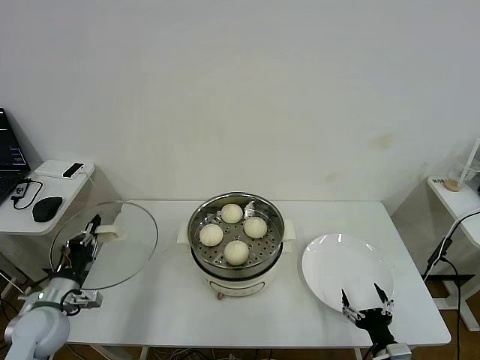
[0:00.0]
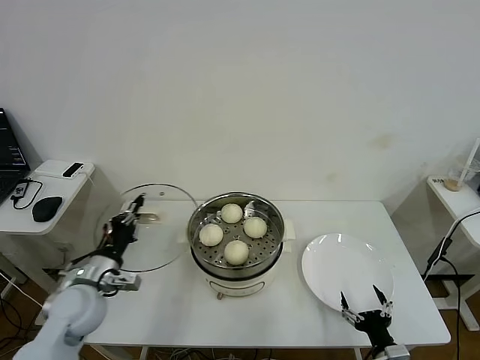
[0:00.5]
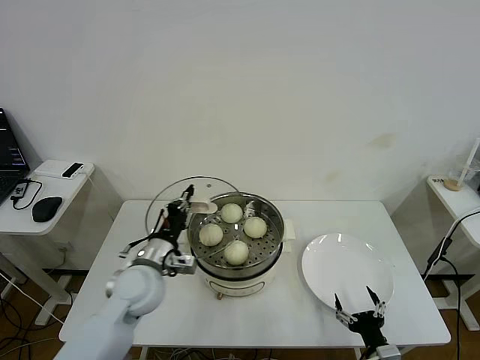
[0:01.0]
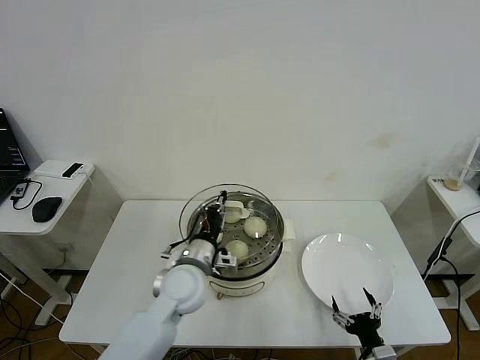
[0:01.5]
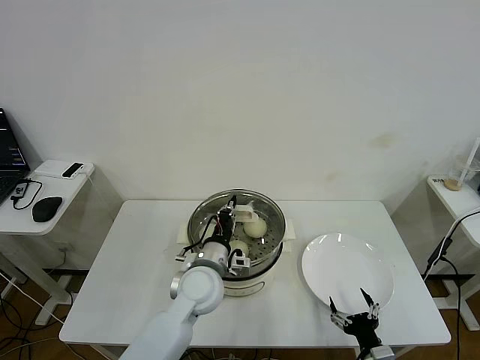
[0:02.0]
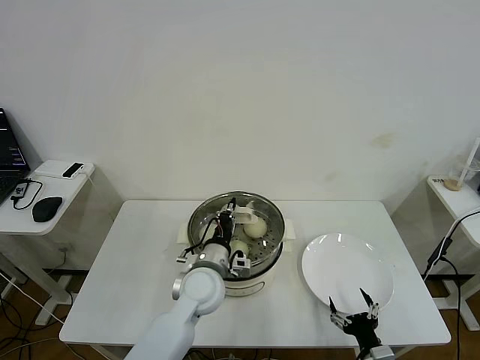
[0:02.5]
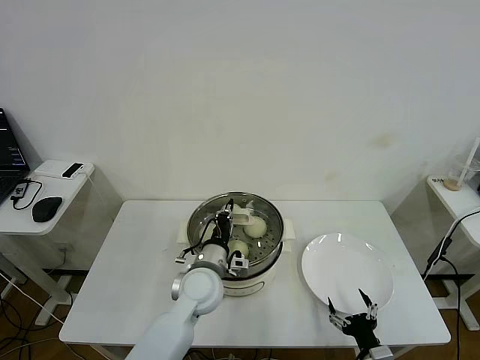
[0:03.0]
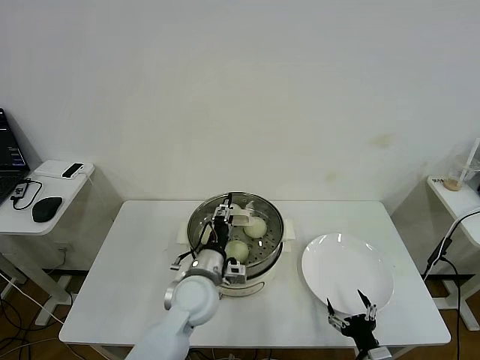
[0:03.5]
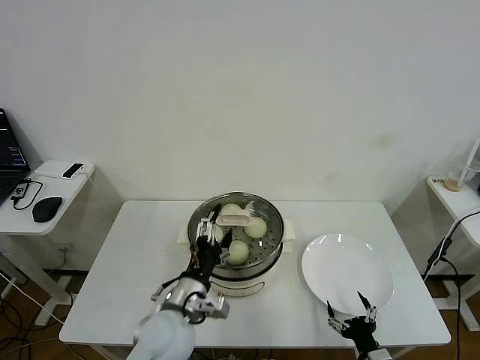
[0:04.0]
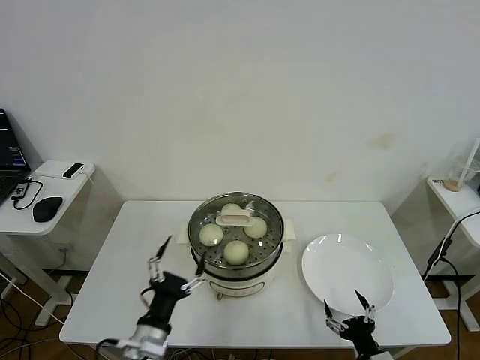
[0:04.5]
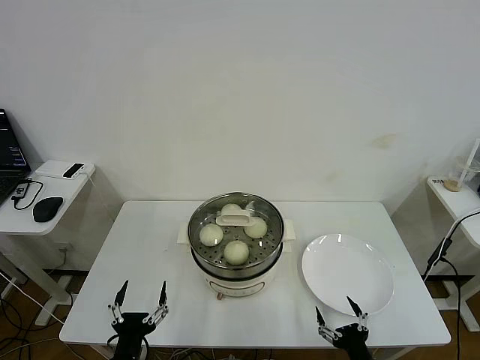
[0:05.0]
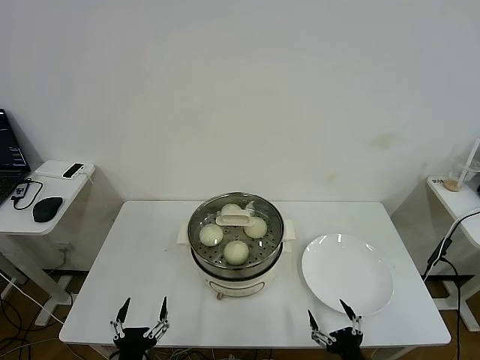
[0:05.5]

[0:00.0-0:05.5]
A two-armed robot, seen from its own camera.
Task of the whole recording: take steamed baozi put them in steamer then cover it.
Step, 0:00.0 to 0:04.0: Place the pot lid on the steamer with left gripper.
0:00.0 to 0:02.0: The left gripper shifts roughly 35 cm to the right.
0:02.0 to 0:03.5: The left gripper opens up.
0:03.5 to 0:05.5: The right gripper ends up some 5 cm from where it was. The left gripper shifts roughly 30 cm backward and to the left, and opens its fingers.

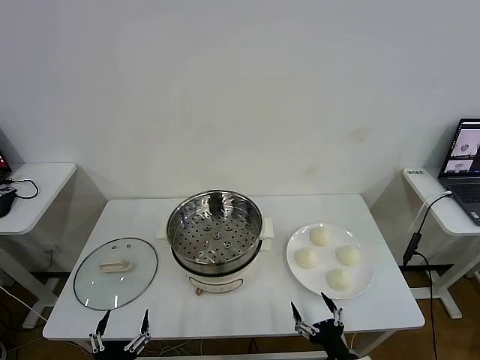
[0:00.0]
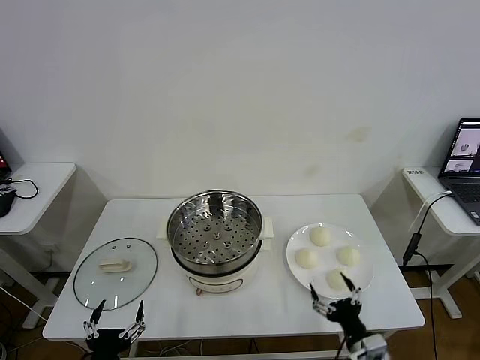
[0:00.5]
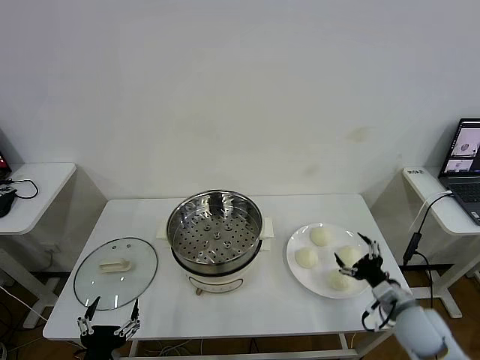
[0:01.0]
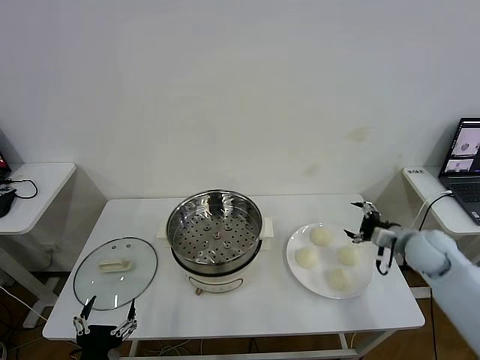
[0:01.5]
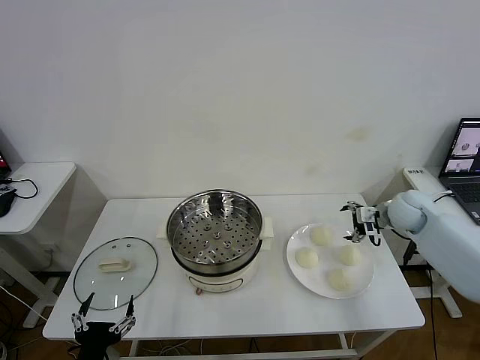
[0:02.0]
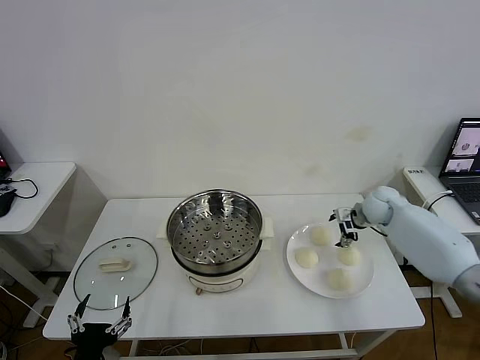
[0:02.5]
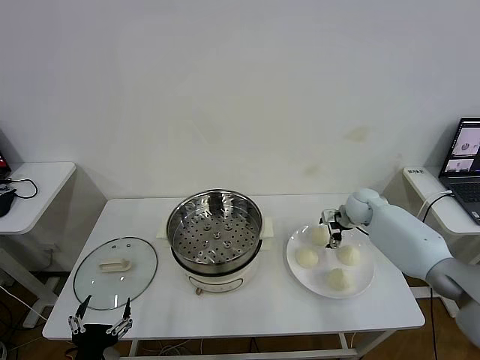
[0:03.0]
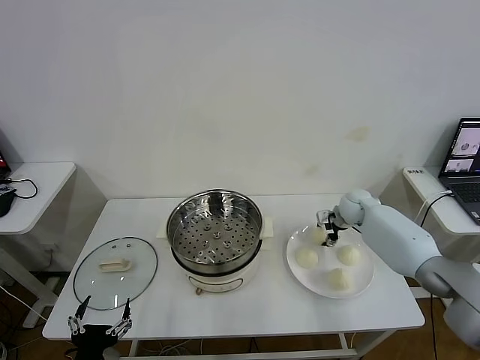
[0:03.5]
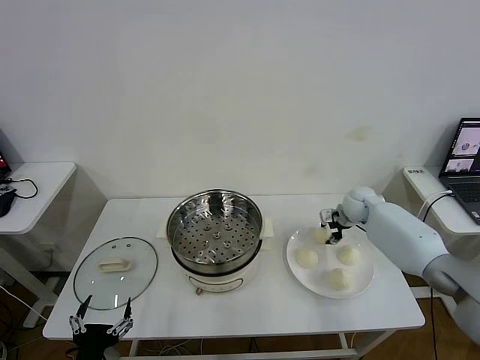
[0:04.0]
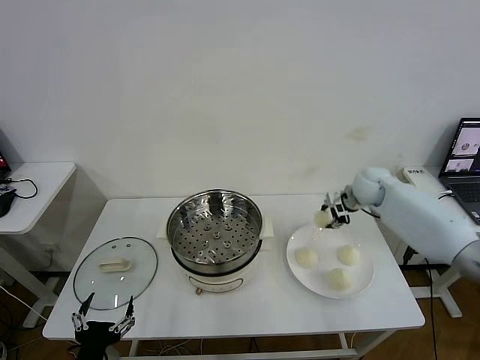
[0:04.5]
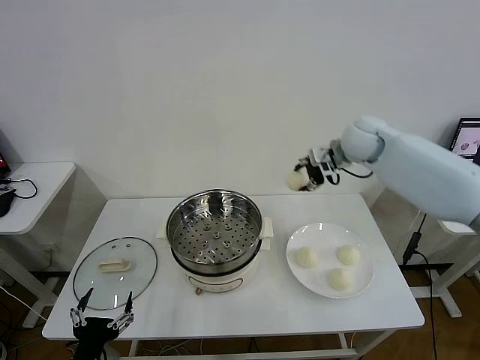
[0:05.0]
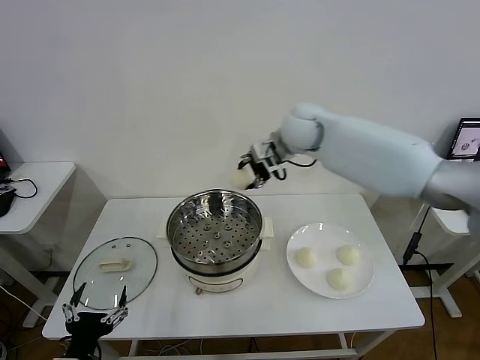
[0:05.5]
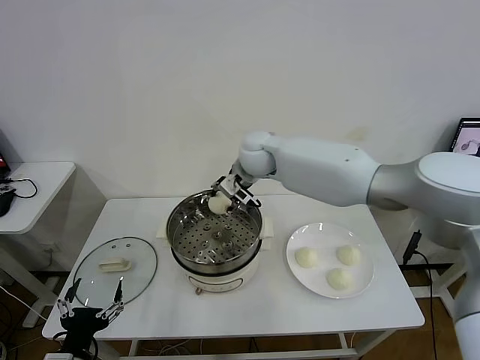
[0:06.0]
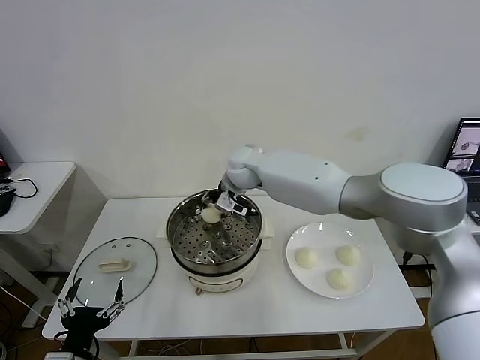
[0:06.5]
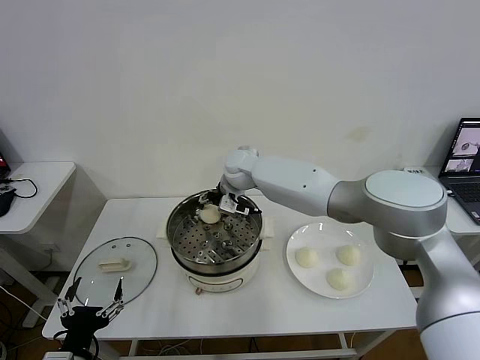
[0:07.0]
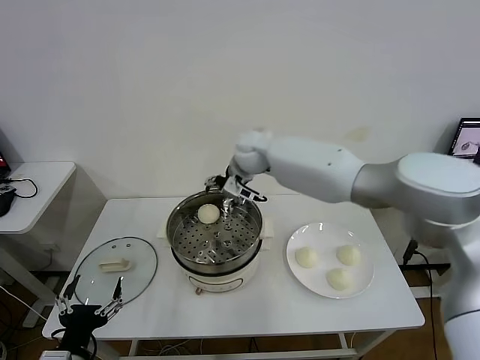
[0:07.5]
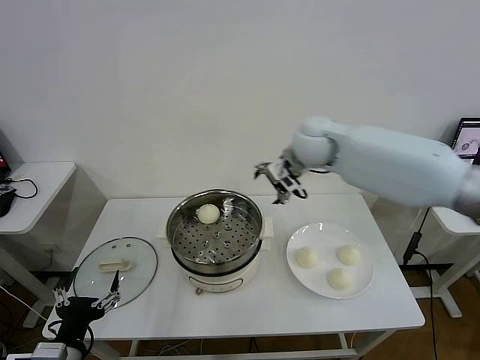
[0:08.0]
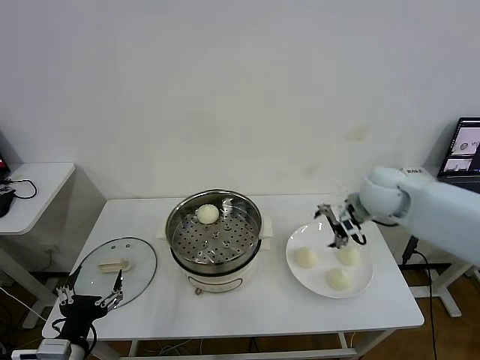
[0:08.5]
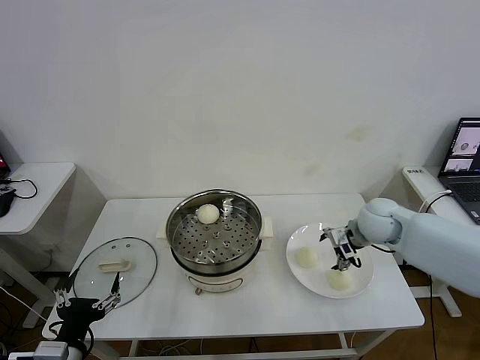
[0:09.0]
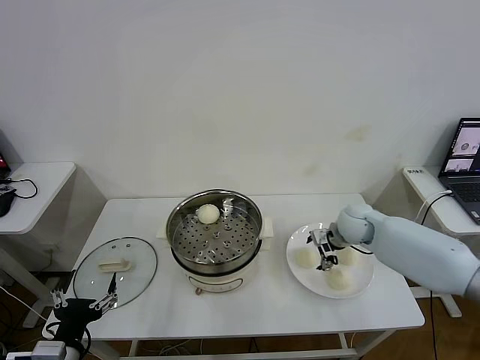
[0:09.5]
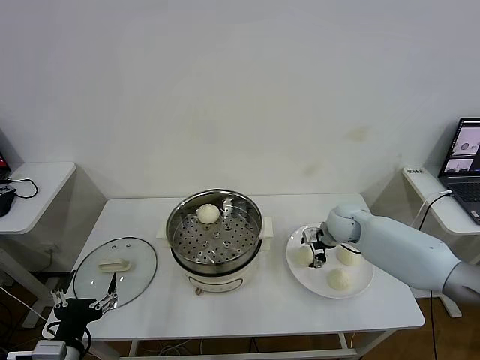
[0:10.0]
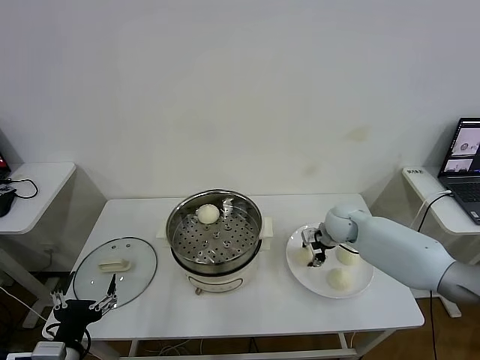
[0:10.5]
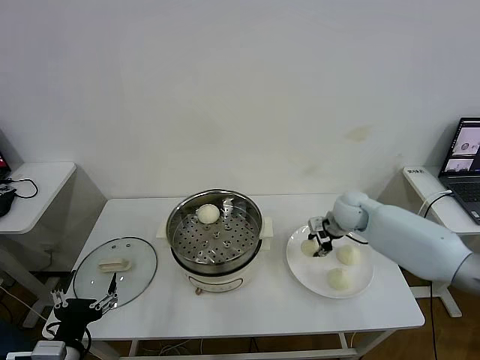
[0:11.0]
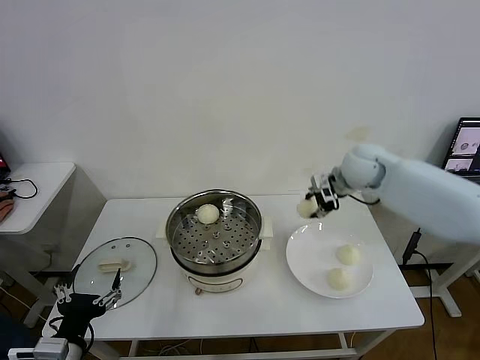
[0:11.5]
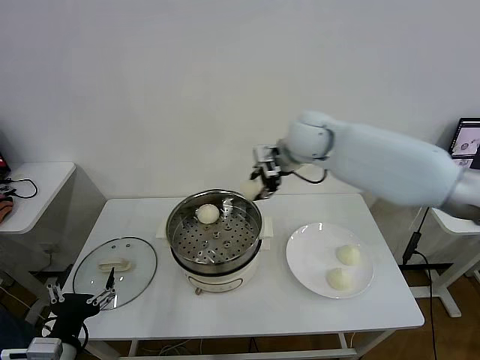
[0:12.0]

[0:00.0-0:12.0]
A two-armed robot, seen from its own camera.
Task of the whole recording: take steamed baozi put them in steamer then cover it.
Step, 0:00.0 to 0:03.5: Grasp the baozi in the plate with right gripper.
Step, 0:04.0 to 0:07.0: Place the baozi on the steamer with right gripper.
Step, 0:07.5 to 0:10.5: Grasp the baozi in the plate with right gripper.
0:02.0 to 0:04.0: The right gripper heads to the left and forward, covering roughly 10 cm, and closes its fingers.
0:04.0 to 0:06.0: The right gripper travels to the left and upward by some 35 cm.
0:06.0 to 0:08.0: The right gripper travels to the right by approximately 15 cm, and opens up.
0:08.0 to 0:10.0: The right gripper goes some 20 cm downward.
0:10.0 to 0:12.0: The right gripper shifts roughly 30 cm upward and to the left, and closes its fingers.

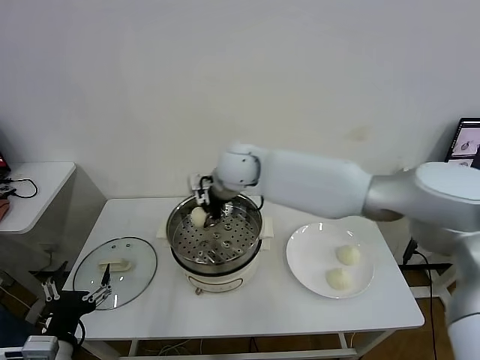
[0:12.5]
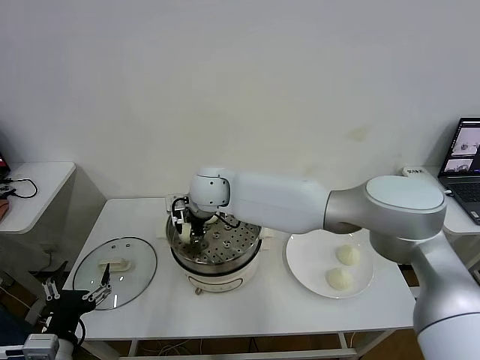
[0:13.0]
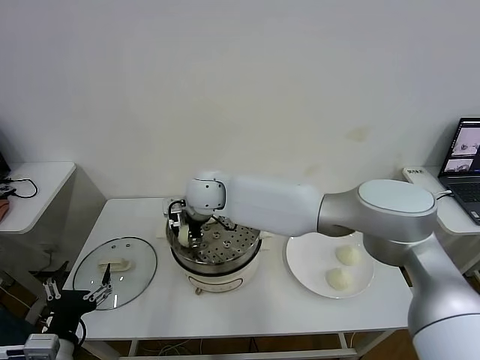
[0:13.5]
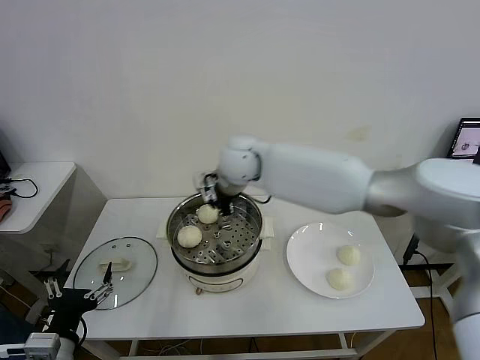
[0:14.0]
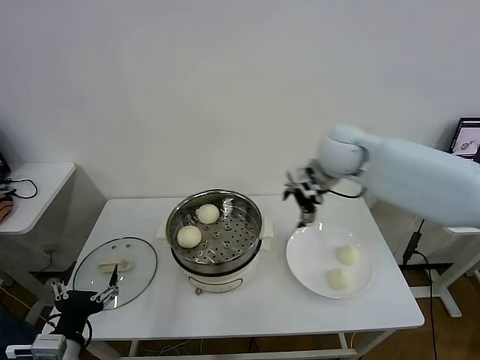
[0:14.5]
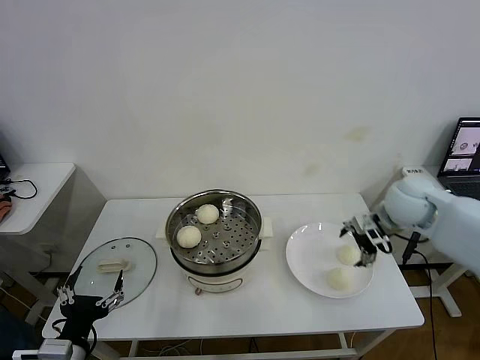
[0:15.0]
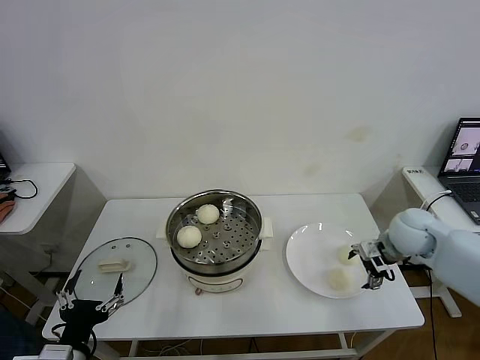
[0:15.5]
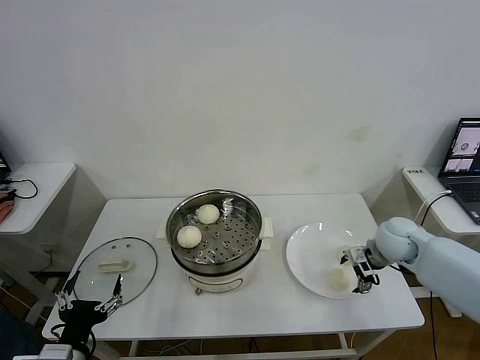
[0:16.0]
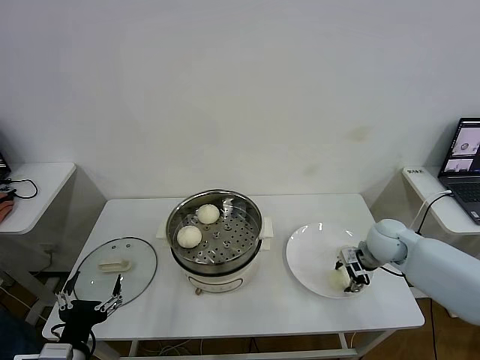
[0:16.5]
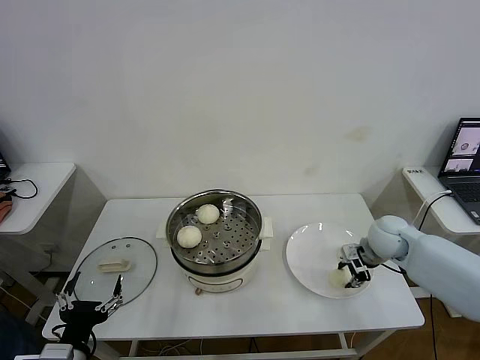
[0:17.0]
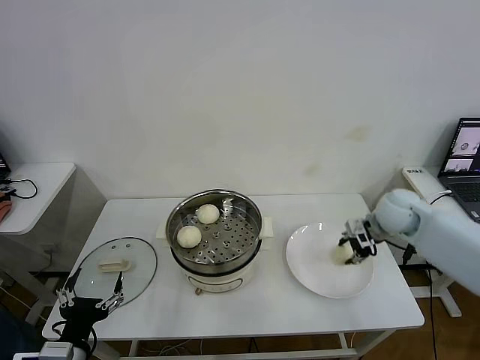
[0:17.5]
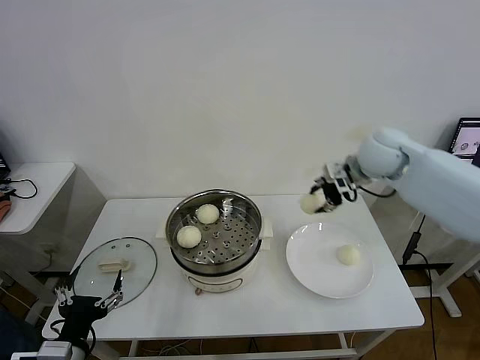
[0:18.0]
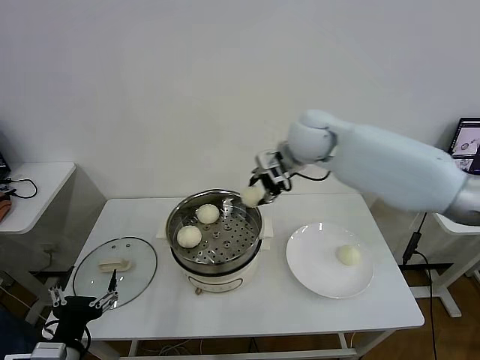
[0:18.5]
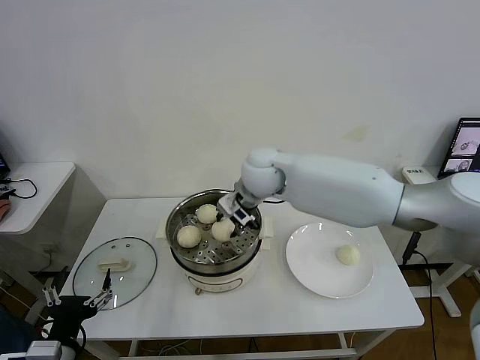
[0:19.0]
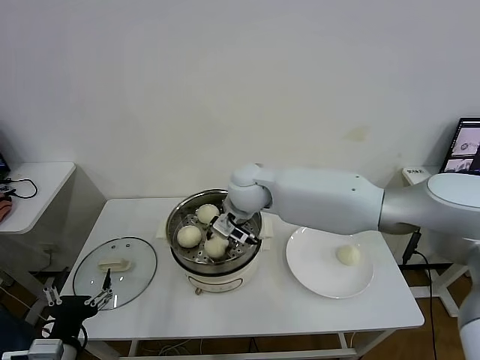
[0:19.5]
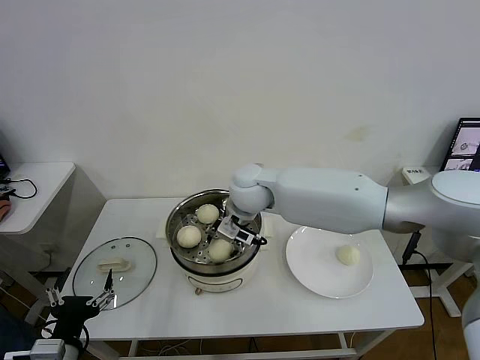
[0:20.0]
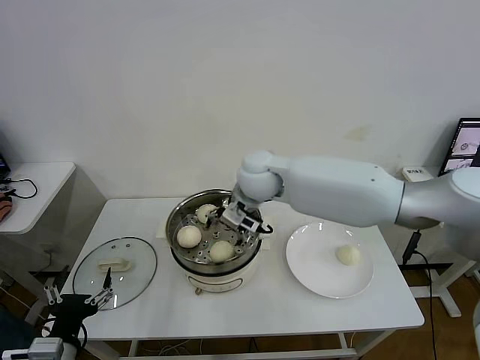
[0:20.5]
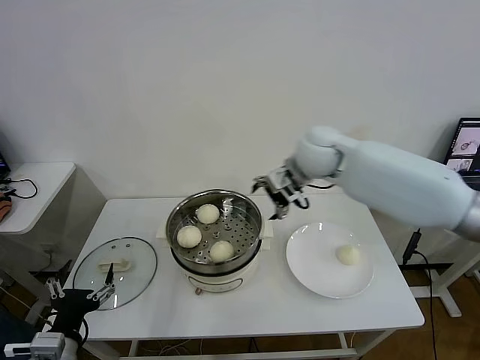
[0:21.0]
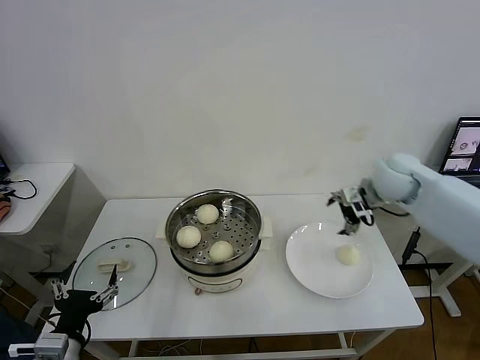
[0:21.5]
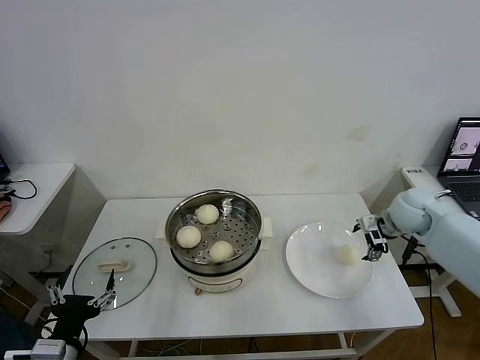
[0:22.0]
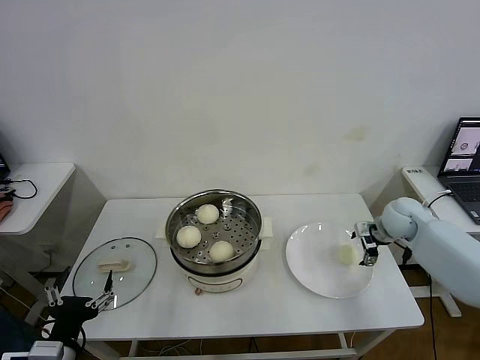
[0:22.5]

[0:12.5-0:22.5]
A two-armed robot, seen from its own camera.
Task of the whole recording: take steamed baozi put them in steamer then cover it.
Step, 0:14.0 to 0:16.5: Grasp the baozi in the plate with right gripper.
Step, 0:17.0 to 0:20.0: Place the baozi on the steamer with right gripper.
0:12.5 to 0:14.5: The right gripper travels to the right by about 25 cm, and opens up.
0:14.5 to 0:16.5: The right gripper moves downward and to the right, roughly 25 cm, and closes.
0:16.5 to 0:18.5: The right gripper moves upward and to the left, approximately 30 cm, and closes up.
0:18.5 to 0:20.5: The right gripper is displaced to the left and downward by about 10 cm, and opens its fingers.
0:20.5 to 0:22.5: The right gripper travels to the right and downward by about 40 cm.
